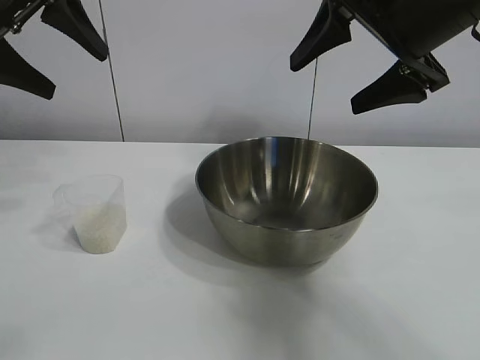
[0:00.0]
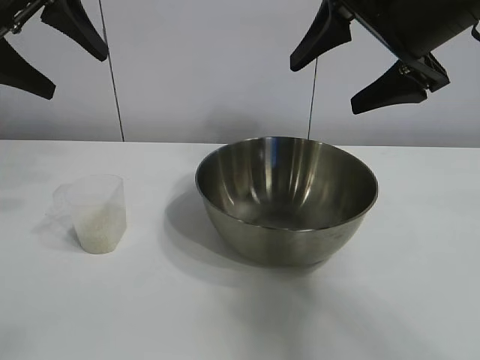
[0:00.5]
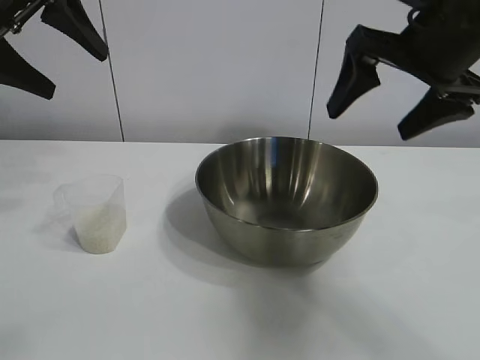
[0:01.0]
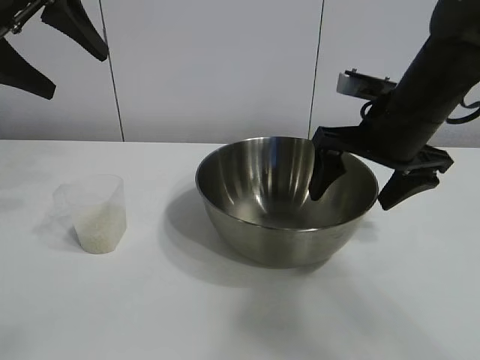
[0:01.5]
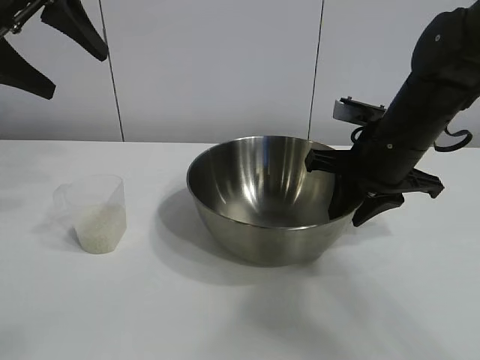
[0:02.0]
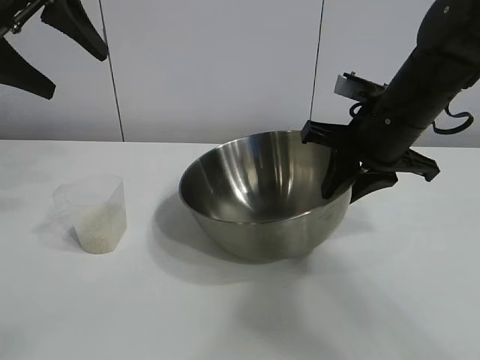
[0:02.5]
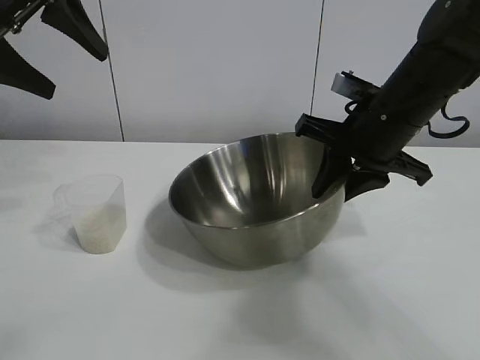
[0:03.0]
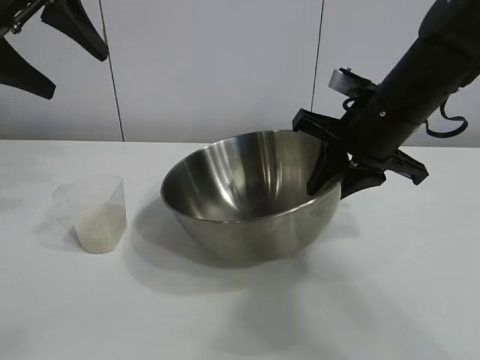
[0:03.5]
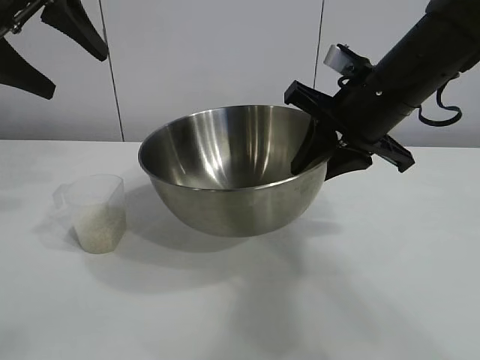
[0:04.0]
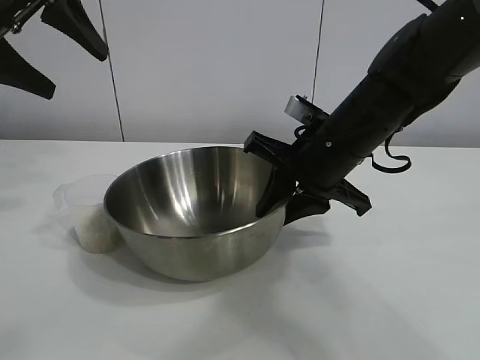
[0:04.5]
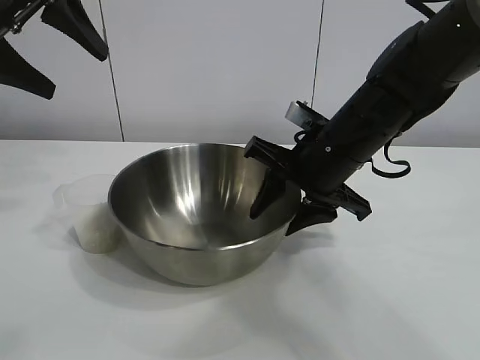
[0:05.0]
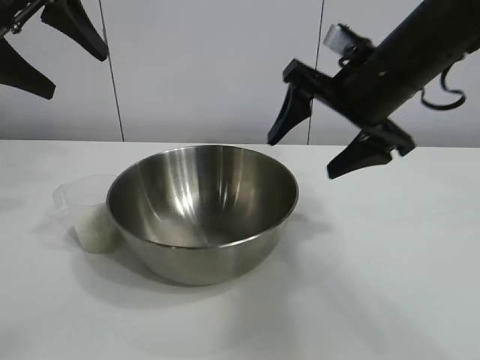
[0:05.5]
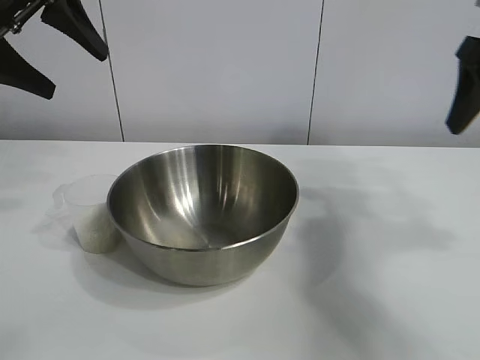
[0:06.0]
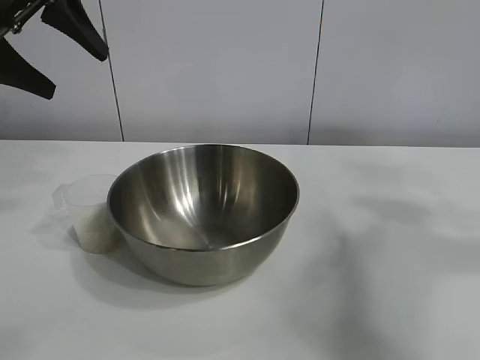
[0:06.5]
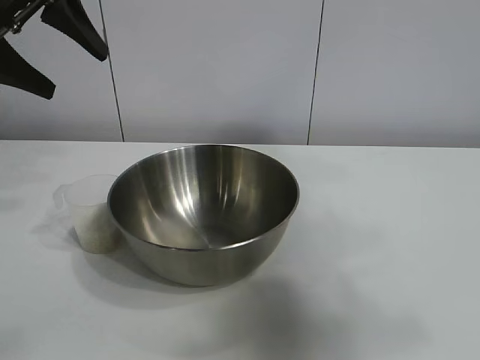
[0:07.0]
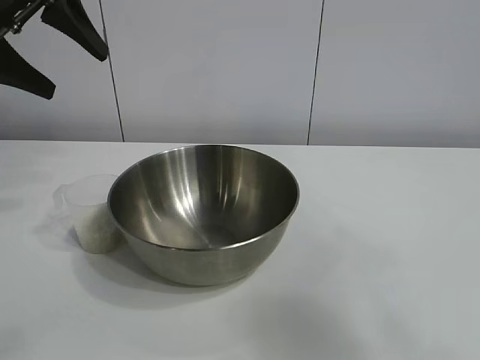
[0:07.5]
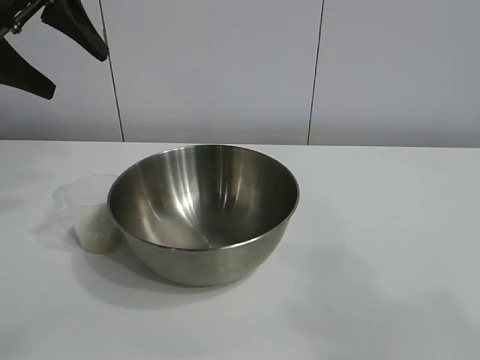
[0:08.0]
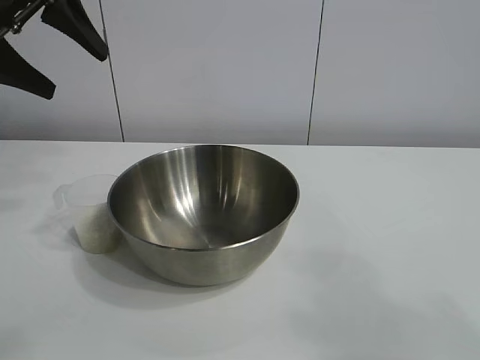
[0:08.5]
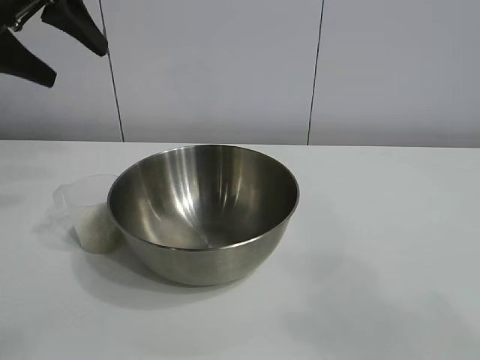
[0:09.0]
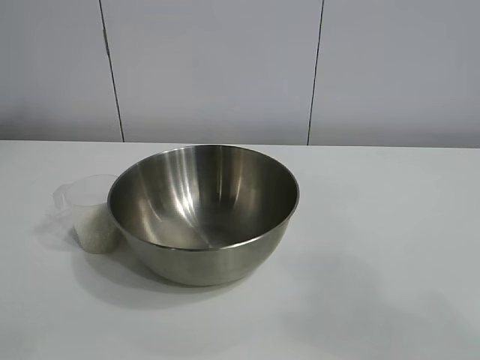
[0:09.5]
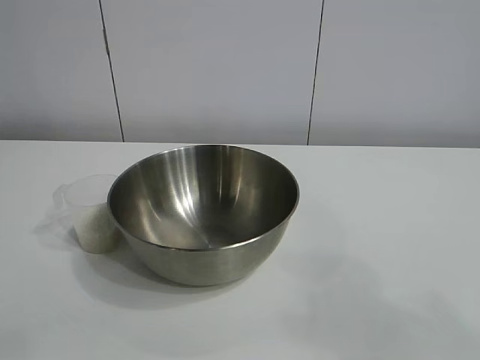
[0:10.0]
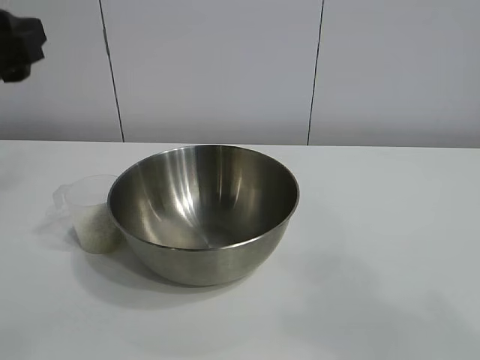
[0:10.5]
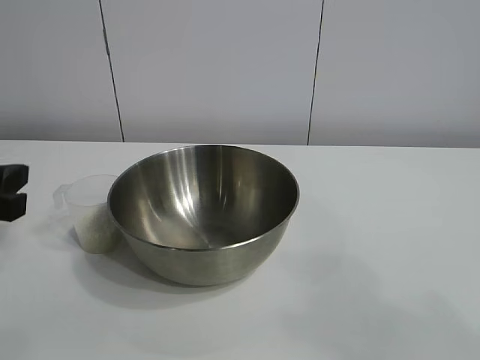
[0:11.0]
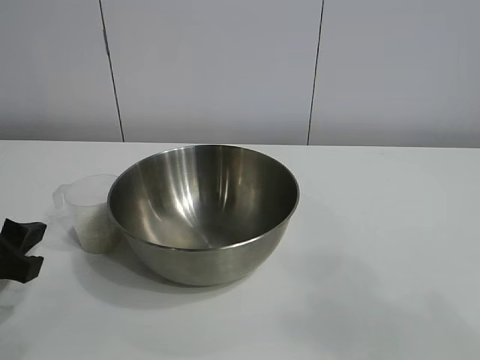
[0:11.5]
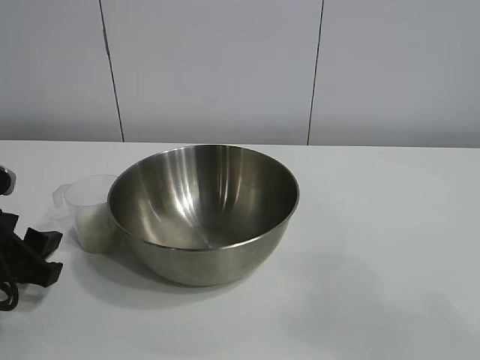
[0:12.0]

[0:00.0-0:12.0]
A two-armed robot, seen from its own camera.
Task of the whole recording: the right gripper grasp the rice container and place it in the center of the table, the left gripper grasp the rice scoop and pour the rice into the rice container.
Step, 0:01.0 to 0:05.0: Move the bowl in the center of view with right gripper.

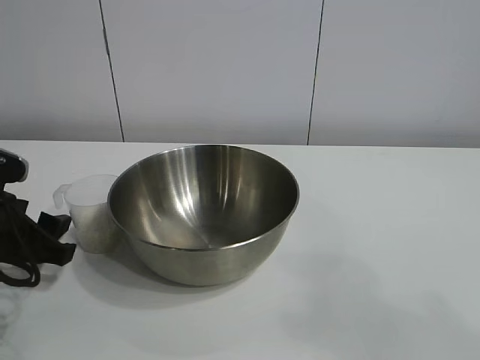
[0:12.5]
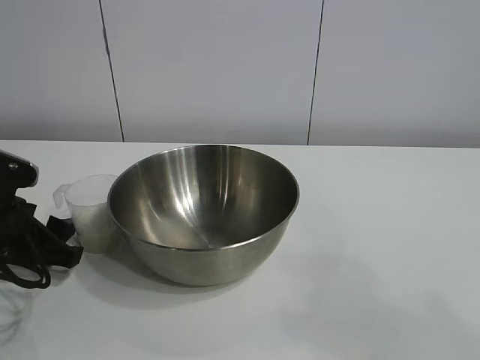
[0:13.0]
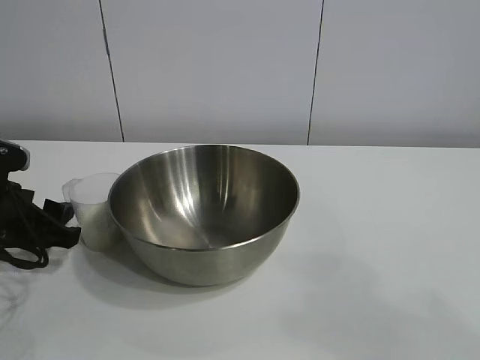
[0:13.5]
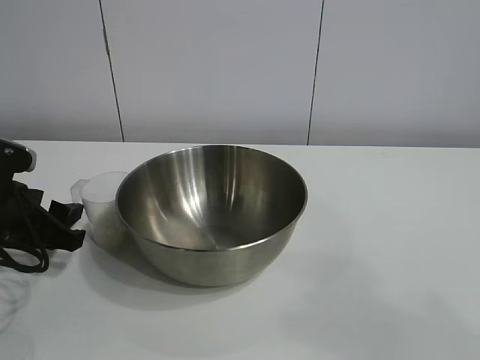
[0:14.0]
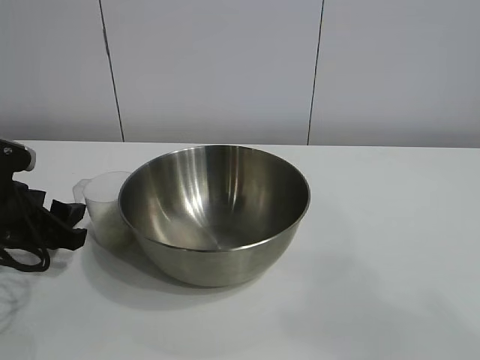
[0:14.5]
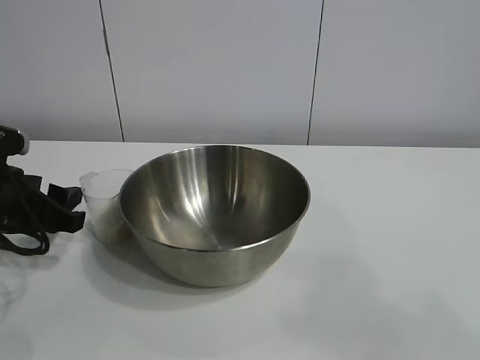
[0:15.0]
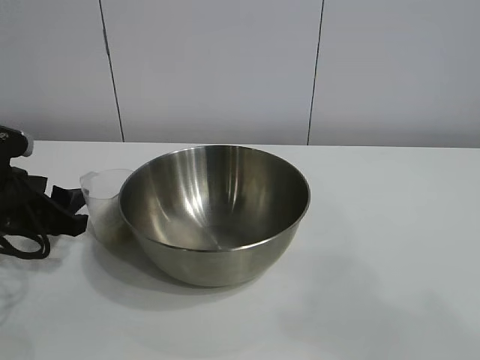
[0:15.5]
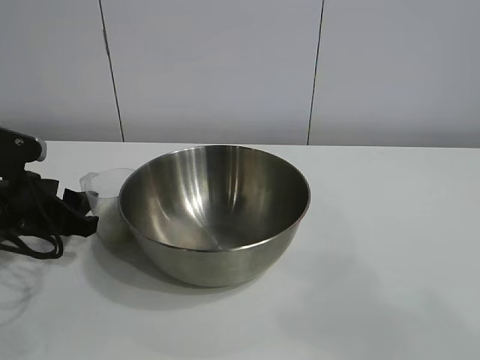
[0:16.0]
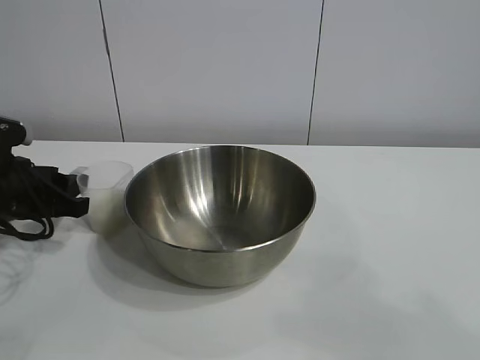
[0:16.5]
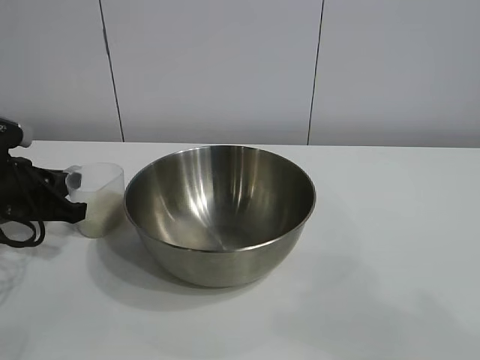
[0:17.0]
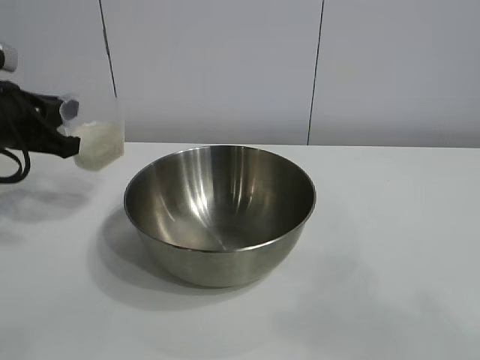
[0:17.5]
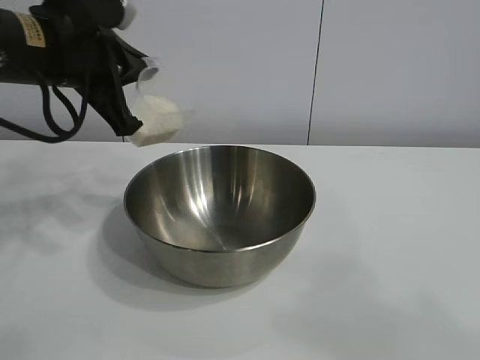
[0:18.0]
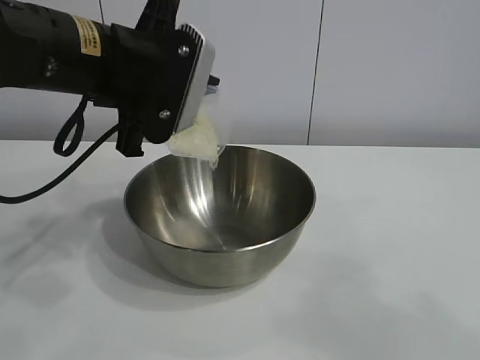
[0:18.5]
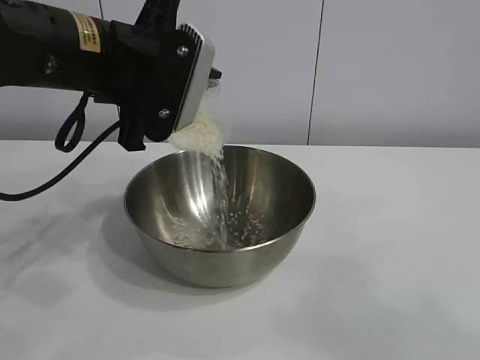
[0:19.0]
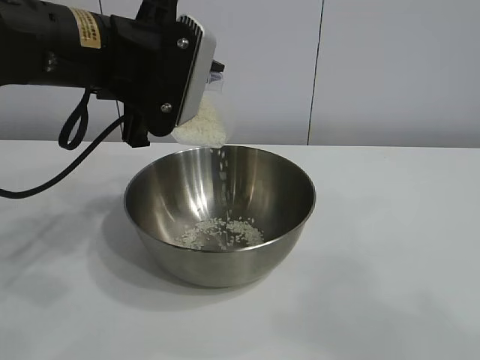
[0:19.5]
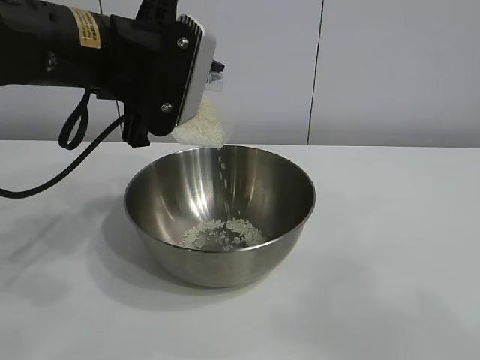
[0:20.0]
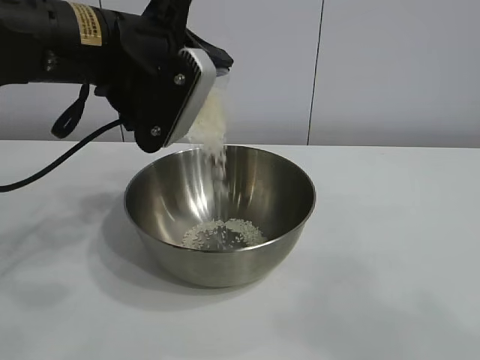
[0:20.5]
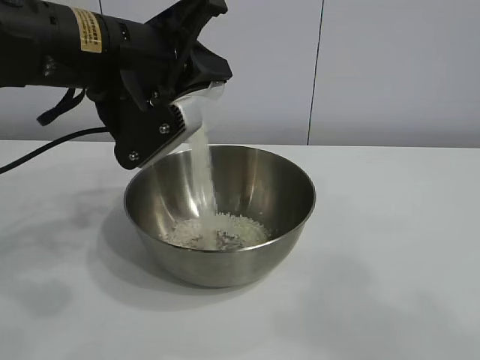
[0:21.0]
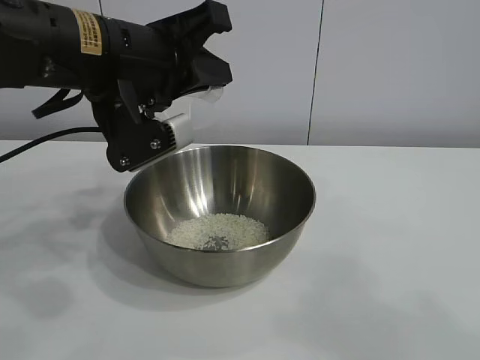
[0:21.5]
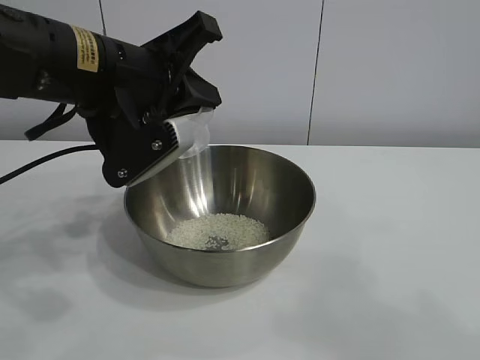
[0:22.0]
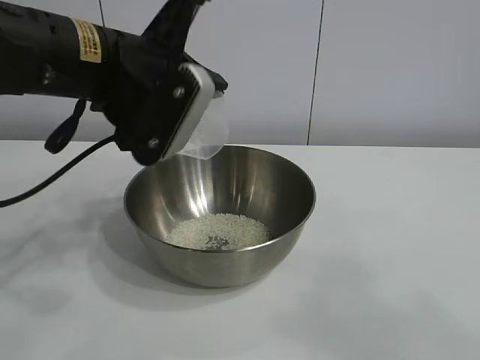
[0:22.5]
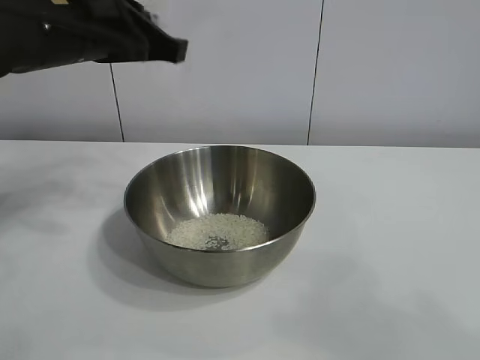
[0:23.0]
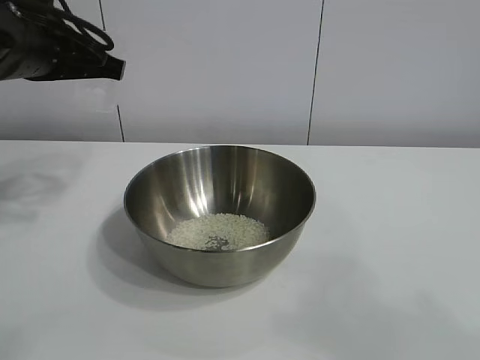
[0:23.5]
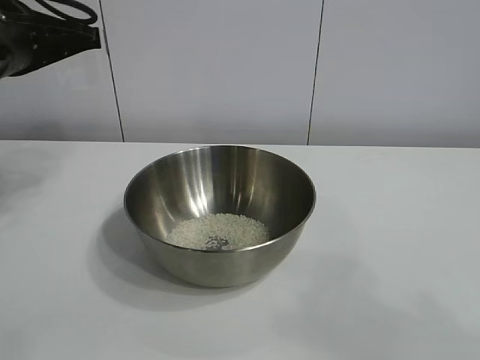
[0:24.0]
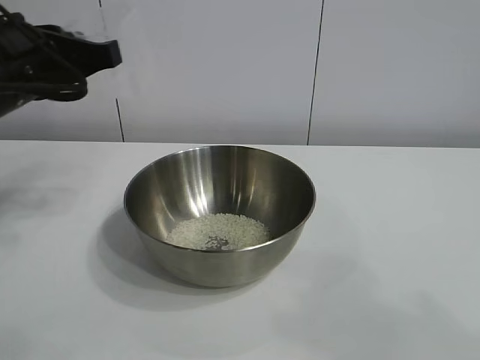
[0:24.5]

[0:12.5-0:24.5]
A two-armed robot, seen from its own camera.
Task of the whole recording: the right gripper grasp the rice container and place it in the center of the table, the left gripper grasp the rice scoop and pour the rice into the rice container.
Step, 0:12.5 to 0:17.0: Grasp the cup with rice in it with left gripper.
Step, 0:17.5 to 0:21.5: Pour the rice from the cup into the bowl with the left gripper.
